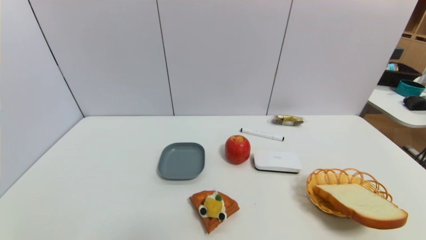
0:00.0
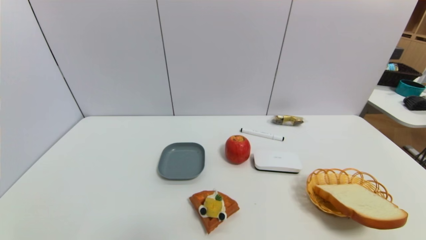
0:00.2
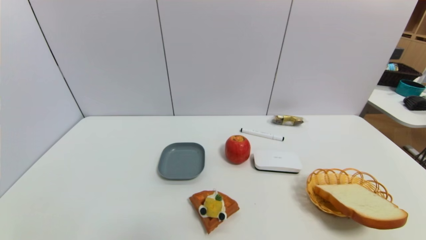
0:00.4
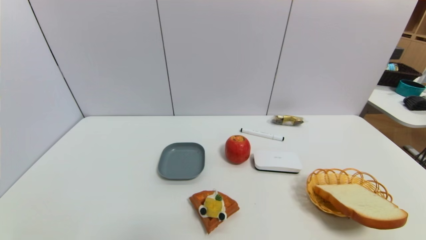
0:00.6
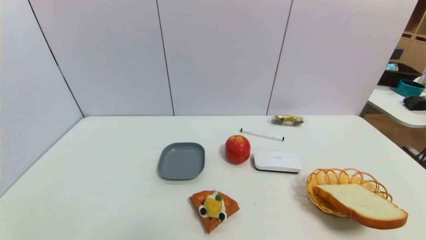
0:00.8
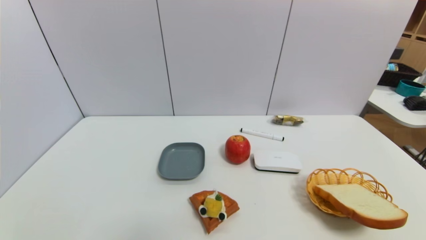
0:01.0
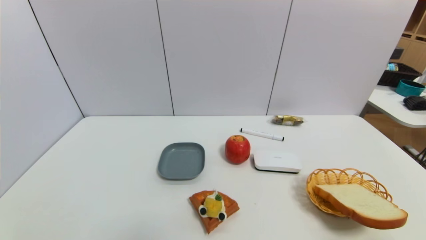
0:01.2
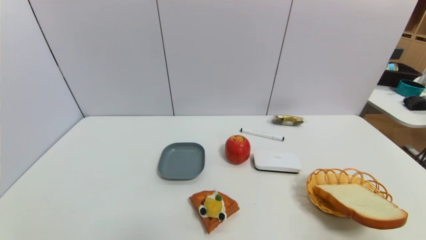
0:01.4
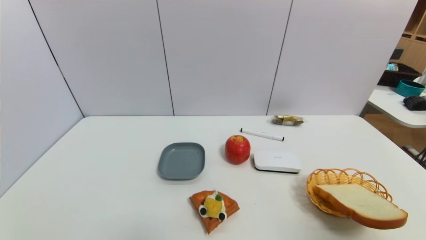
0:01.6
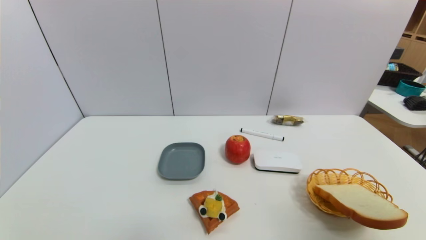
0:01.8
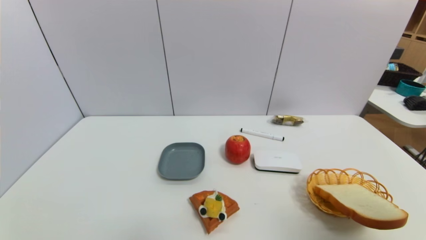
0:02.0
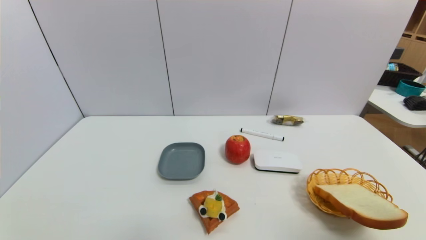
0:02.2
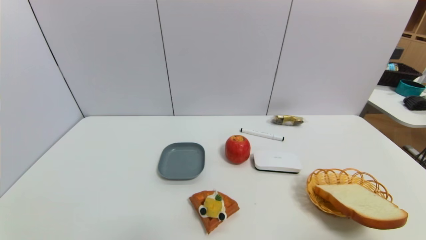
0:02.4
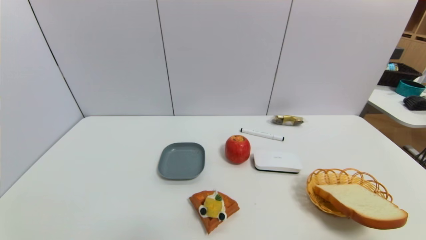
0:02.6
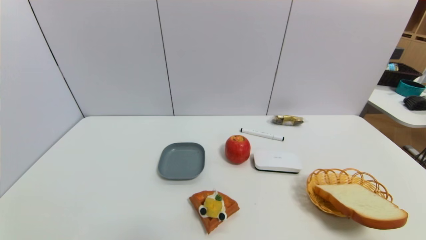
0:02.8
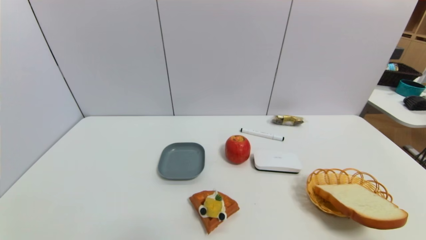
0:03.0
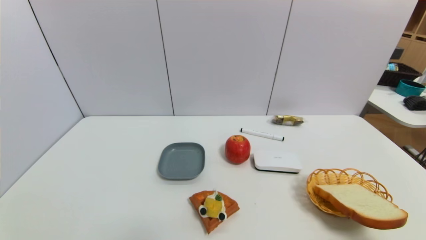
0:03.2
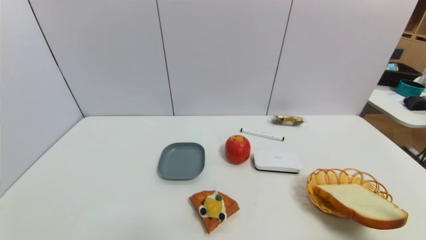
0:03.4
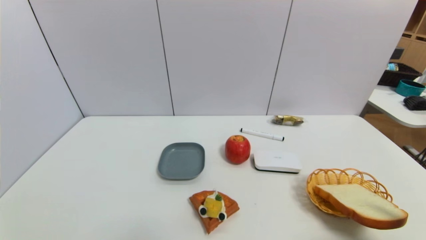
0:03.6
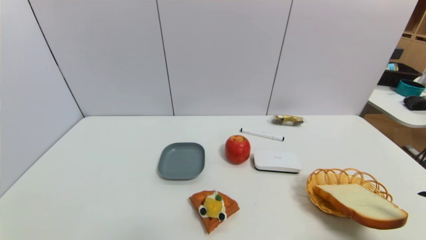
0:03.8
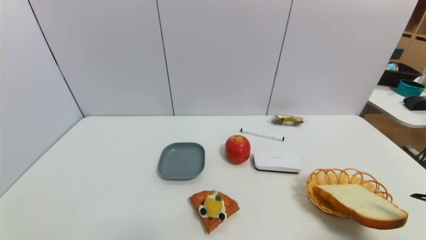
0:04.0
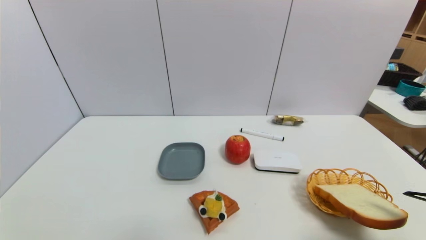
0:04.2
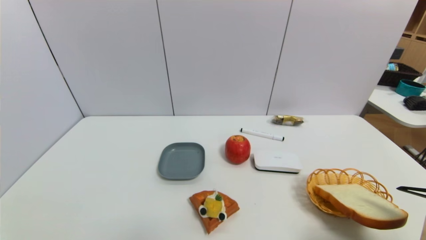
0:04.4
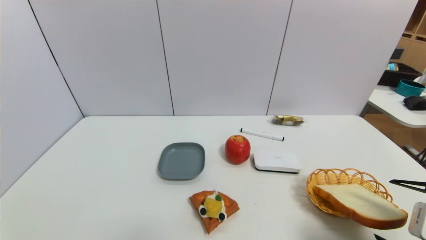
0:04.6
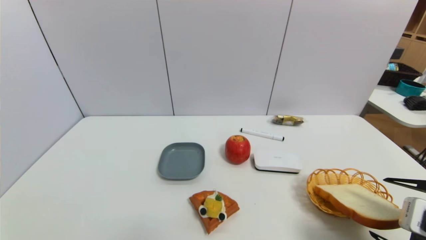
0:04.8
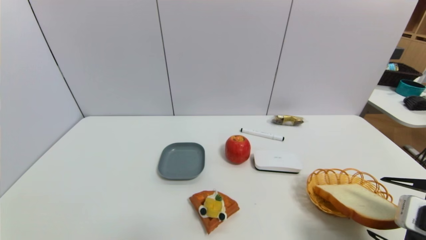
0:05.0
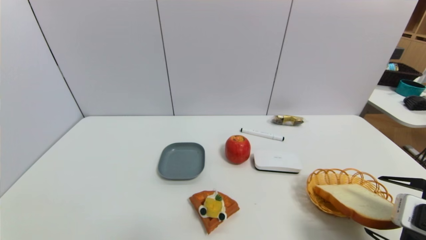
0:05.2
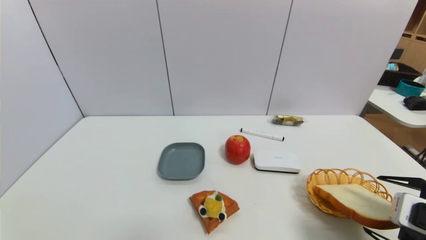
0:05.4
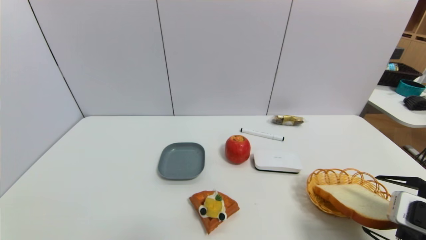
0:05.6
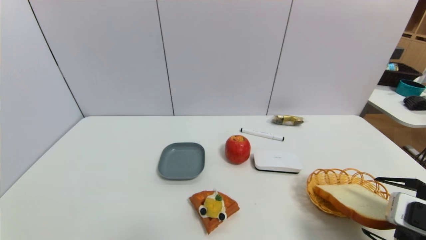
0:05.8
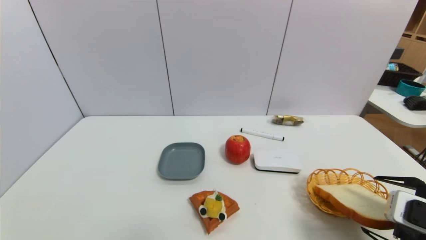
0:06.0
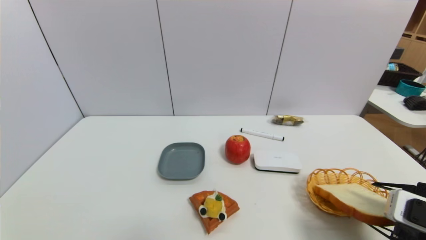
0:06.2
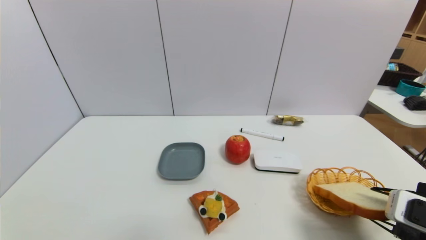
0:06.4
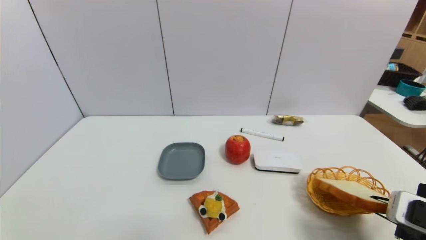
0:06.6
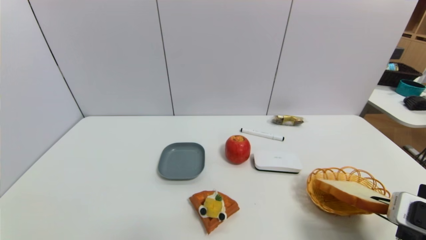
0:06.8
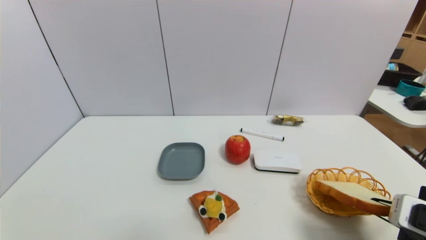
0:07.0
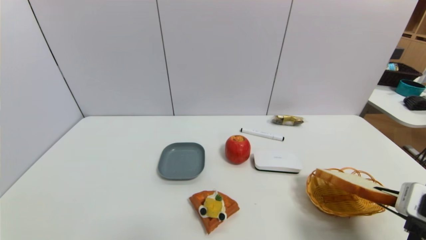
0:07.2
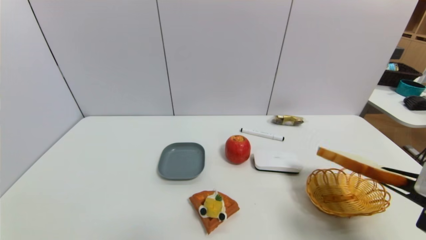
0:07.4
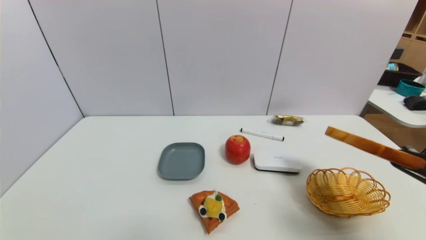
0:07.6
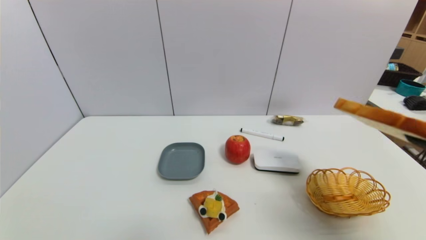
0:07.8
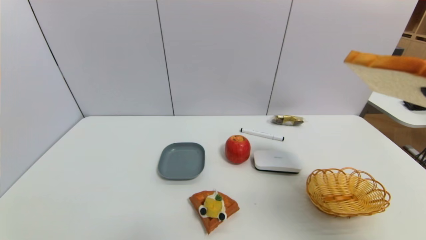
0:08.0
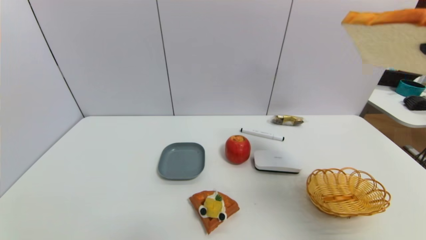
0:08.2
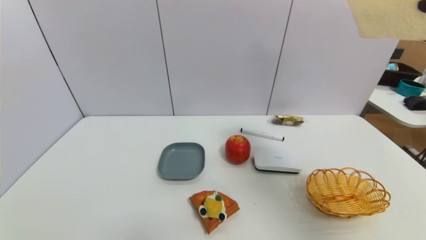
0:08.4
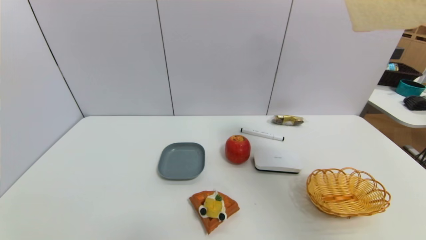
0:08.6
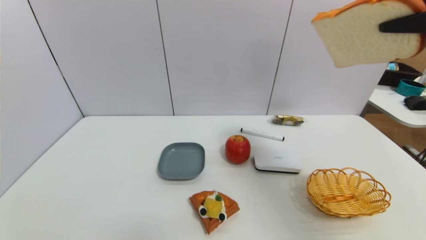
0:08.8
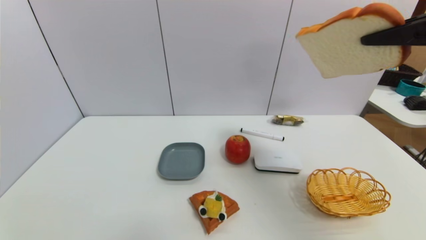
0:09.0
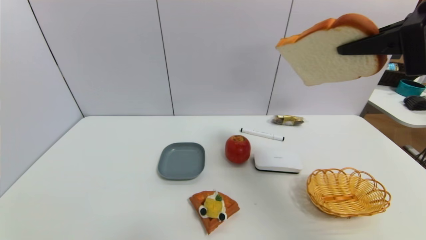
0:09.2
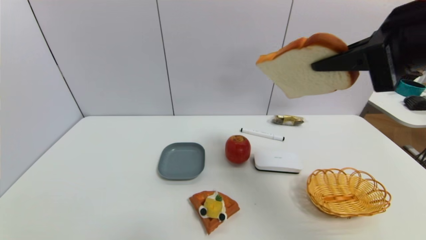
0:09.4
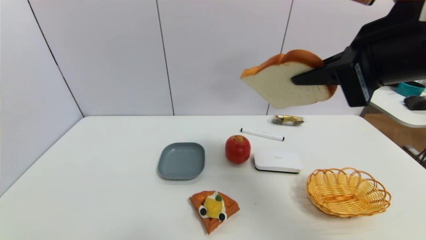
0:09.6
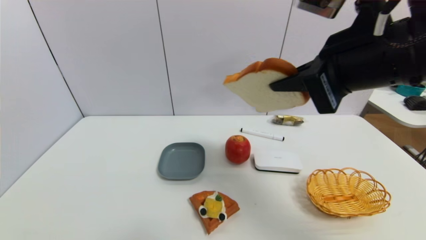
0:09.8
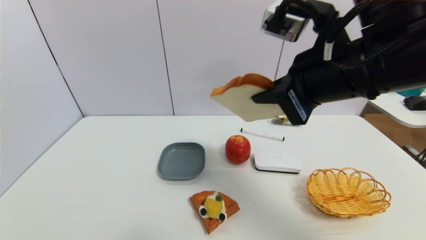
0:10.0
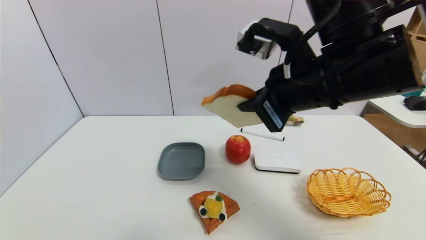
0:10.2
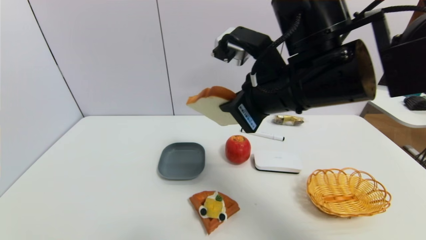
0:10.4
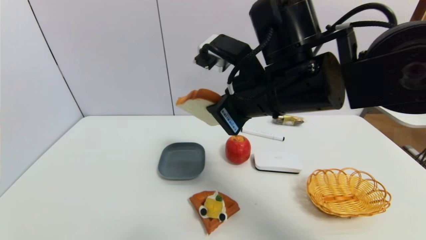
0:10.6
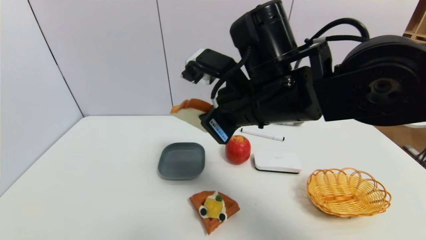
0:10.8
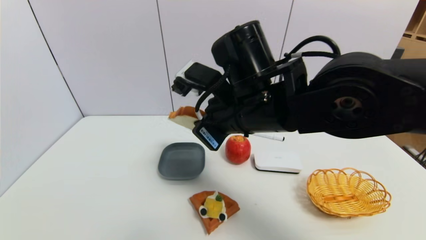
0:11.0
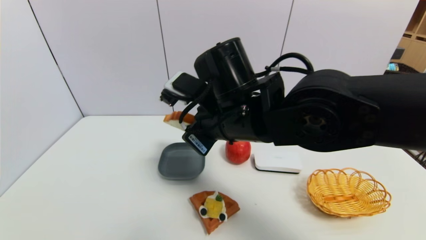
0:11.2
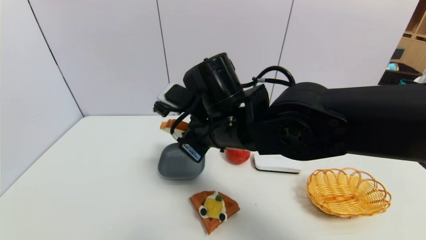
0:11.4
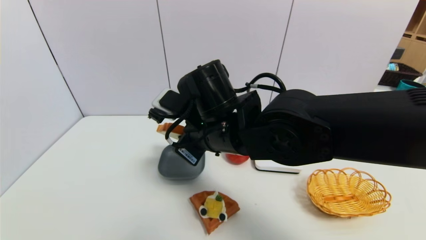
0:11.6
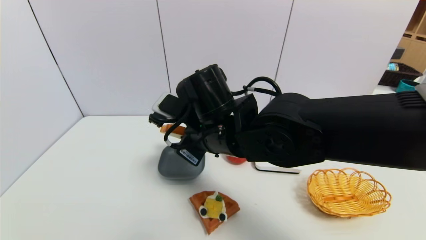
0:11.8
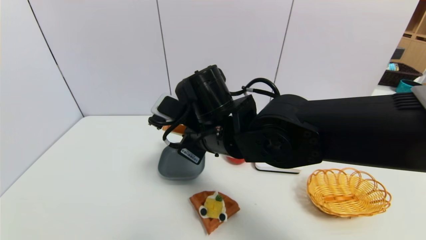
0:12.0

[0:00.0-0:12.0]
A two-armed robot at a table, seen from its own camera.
Task of the whole recording: use a gripper to pick the target object and place on the dish.
Step, 0:00.0 to 0:06.6: Grasp the bread slice with the right gripper.
0:00.0 to 0:01.6: The right gripper heads upward, covering about 25 cm.
0:03.0 to 0:04.4: The right gripper shifts approximately 10 cm forward and downward.
0:04.4 to 0:06.0: The grippers make only small movements.
0:06.0 to 0:07.6: The right gripper goes approximately 5 cm upward, and closes.
0:07.6 to 0:09.0: The right gripper heads upward, covering approximately 20 cm.
0:09.0 to 0:10.4: The right gripper travels to the left and downward by some 20 cm.
0:10.4 to 0:12.0: The right gripper heads to the left and downward, covering about 15 cm.

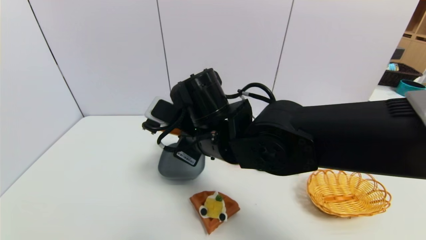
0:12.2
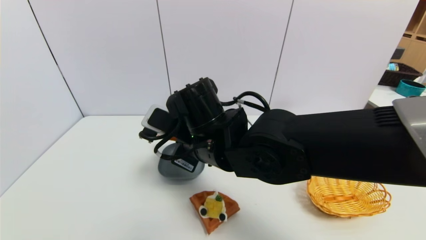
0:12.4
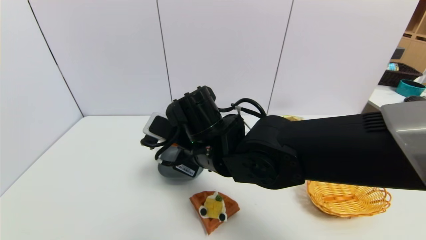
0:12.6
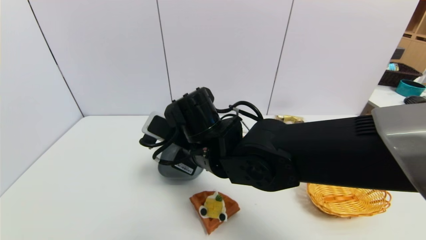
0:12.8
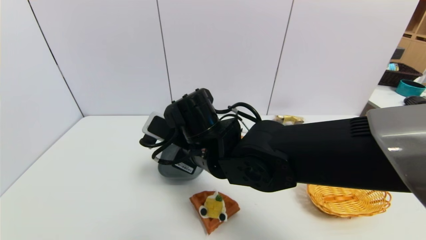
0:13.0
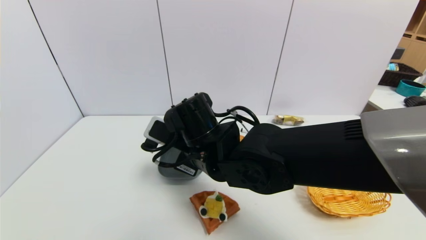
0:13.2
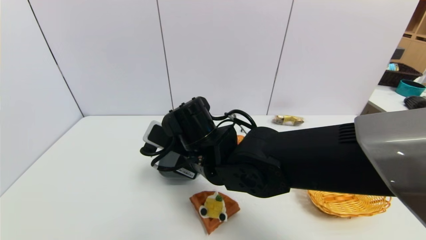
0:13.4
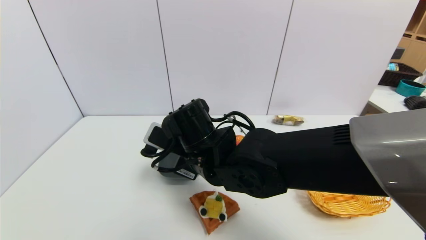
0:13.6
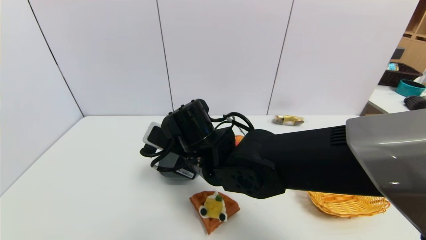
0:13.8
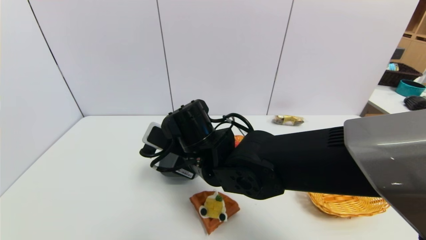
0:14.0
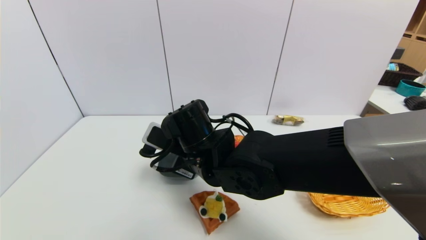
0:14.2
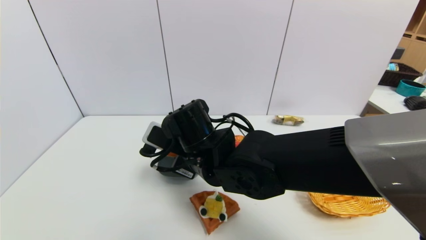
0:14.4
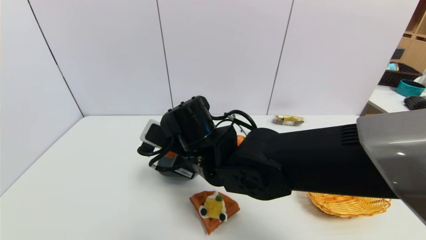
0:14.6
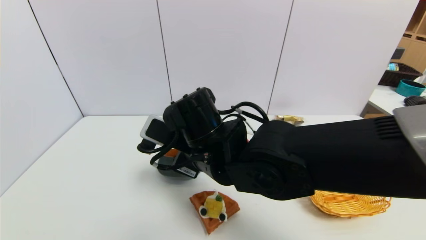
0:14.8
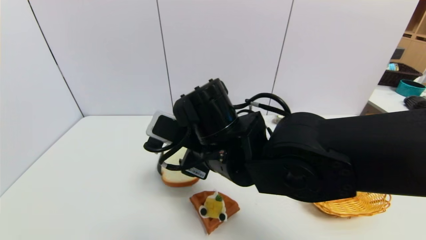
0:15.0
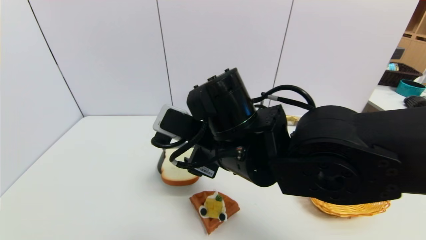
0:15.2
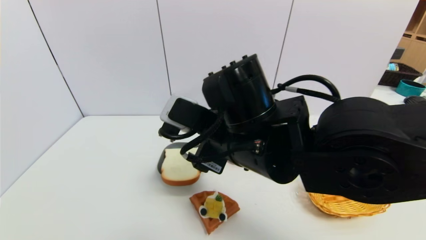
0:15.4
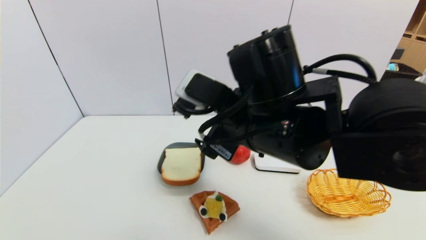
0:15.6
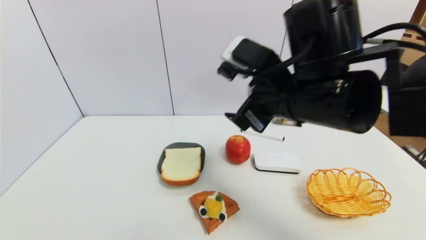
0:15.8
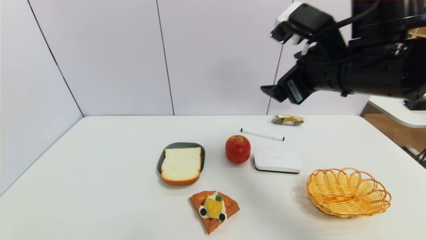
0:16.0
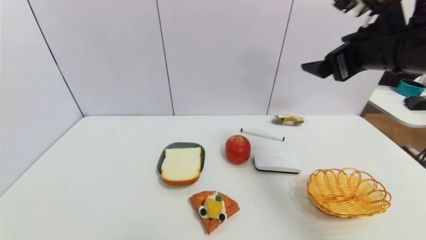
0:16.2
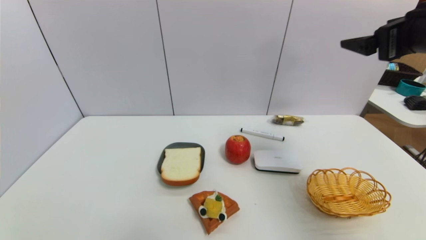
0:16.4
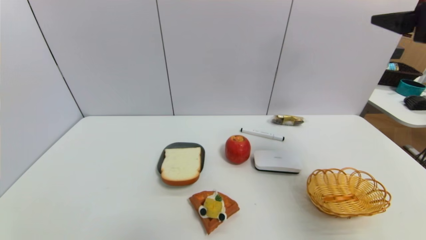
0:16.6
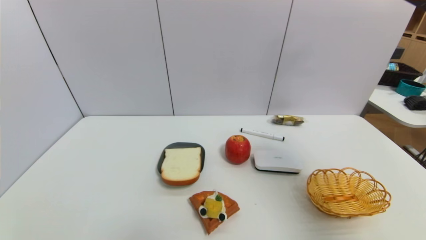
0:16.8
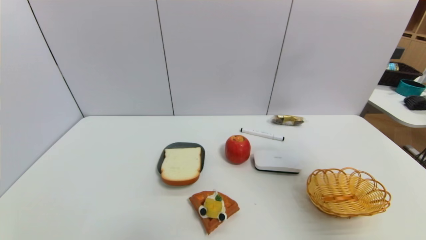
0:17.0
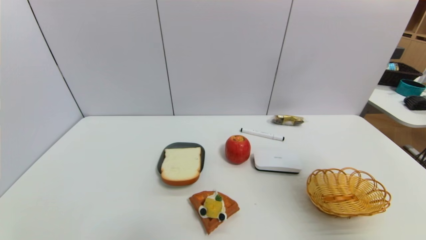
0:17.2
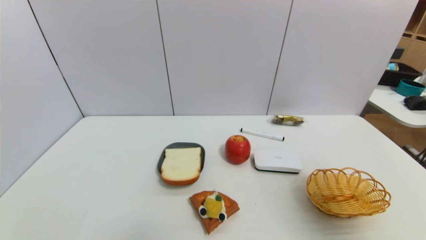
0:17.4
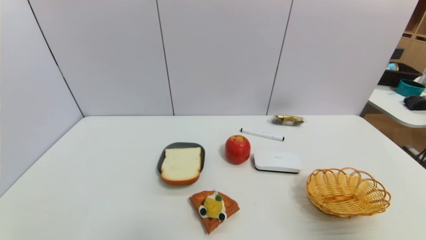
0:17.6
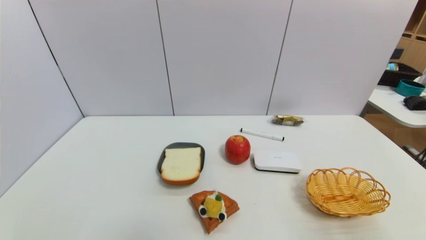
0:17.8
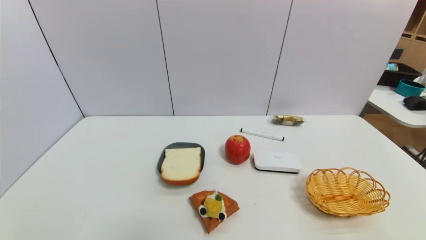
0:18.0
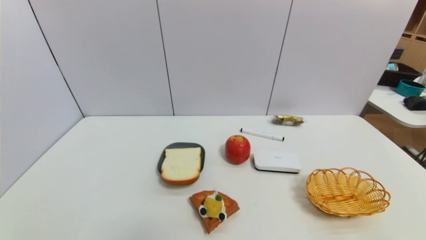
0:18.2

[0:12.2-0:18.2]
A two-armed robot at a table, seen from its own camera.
Task of the whole recording: use a gripper to pick the target object and place on the dish.
Step, 0:12.2 to 0:15.2: Place the bread slice on the dish with the right gripper.
0:13.8 to 0:15.2: The right gripper is displaced upward by roughly 5 cm, and opens its fingers.
0:15.2 to 0:16.6: The right gripper heads to the right and upward, covering approximately 30 cm.
0:16.6 to 0:18.2: The right gripper heads backward and downward, covering roughly 30 cm.
